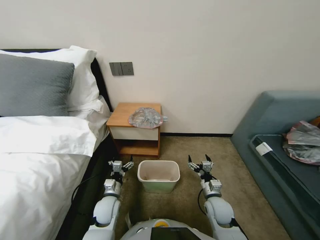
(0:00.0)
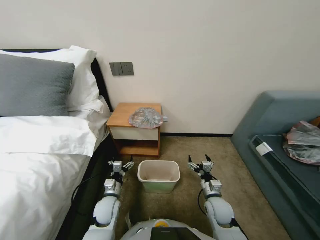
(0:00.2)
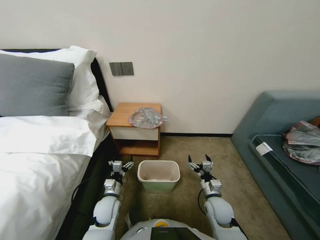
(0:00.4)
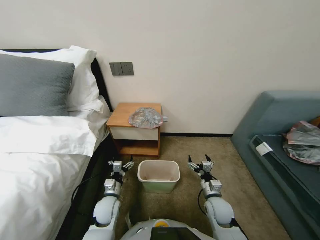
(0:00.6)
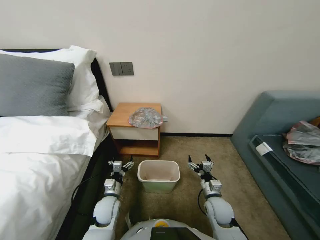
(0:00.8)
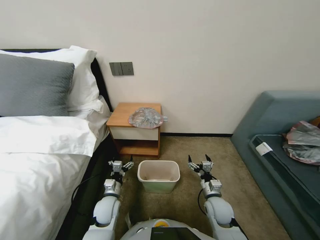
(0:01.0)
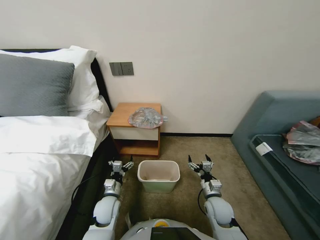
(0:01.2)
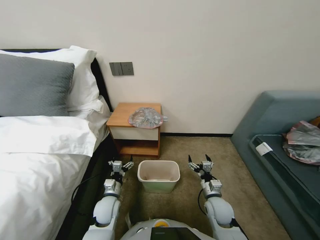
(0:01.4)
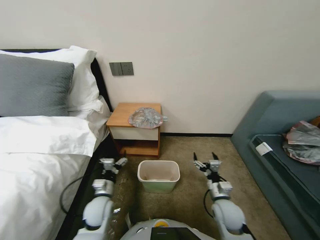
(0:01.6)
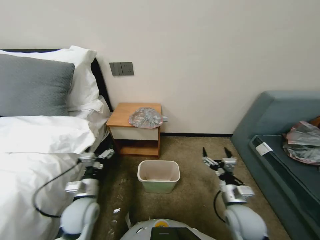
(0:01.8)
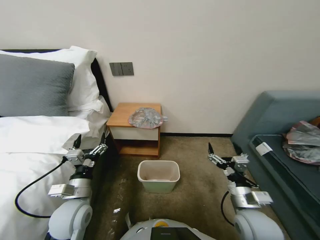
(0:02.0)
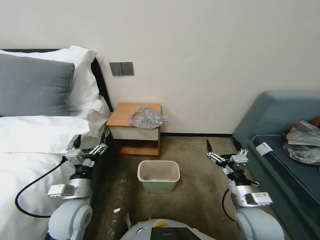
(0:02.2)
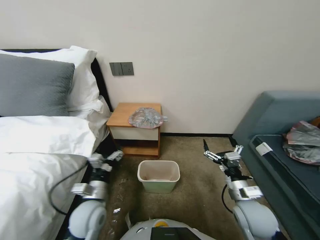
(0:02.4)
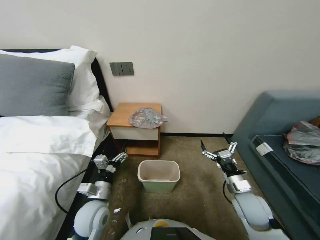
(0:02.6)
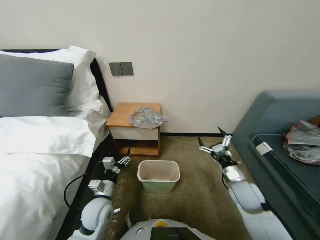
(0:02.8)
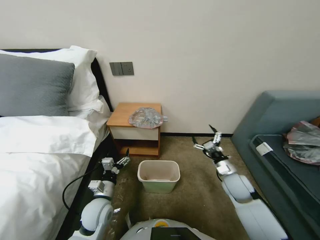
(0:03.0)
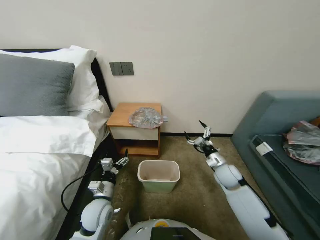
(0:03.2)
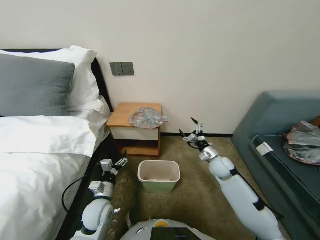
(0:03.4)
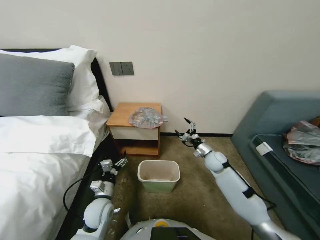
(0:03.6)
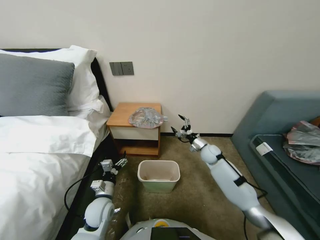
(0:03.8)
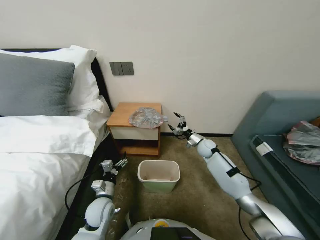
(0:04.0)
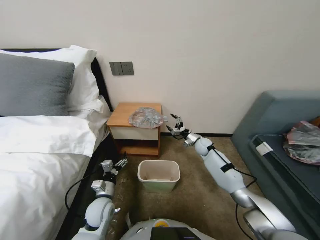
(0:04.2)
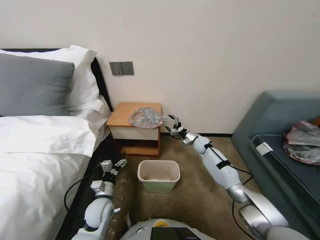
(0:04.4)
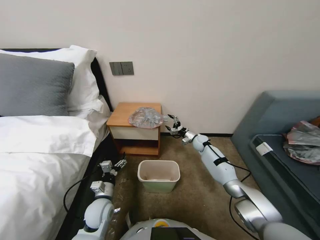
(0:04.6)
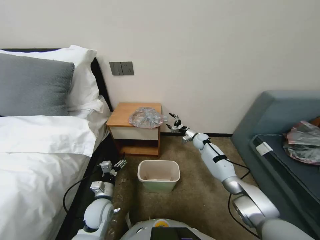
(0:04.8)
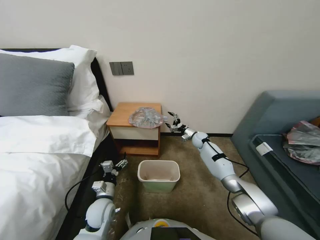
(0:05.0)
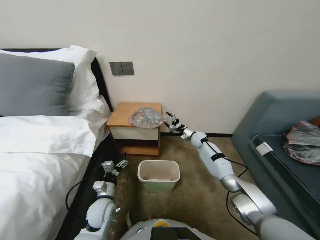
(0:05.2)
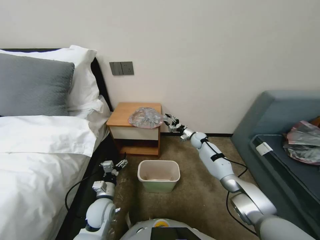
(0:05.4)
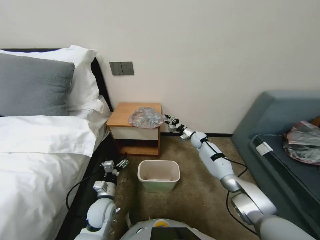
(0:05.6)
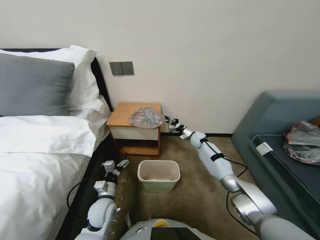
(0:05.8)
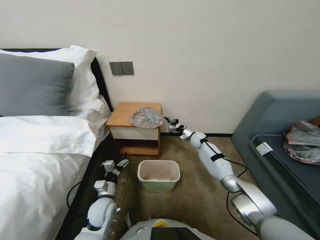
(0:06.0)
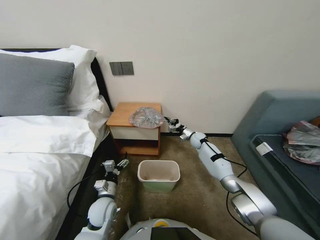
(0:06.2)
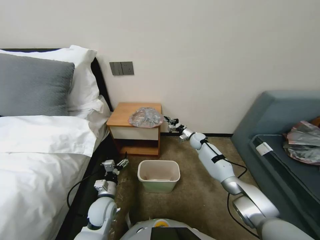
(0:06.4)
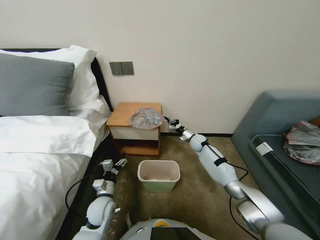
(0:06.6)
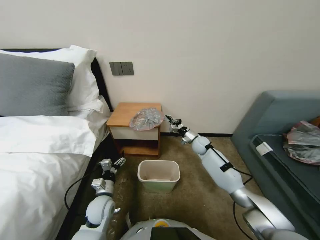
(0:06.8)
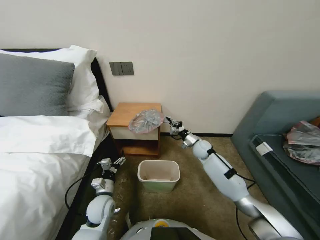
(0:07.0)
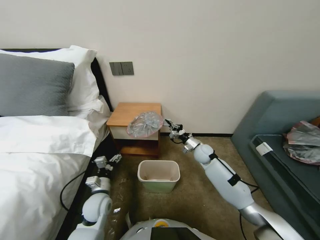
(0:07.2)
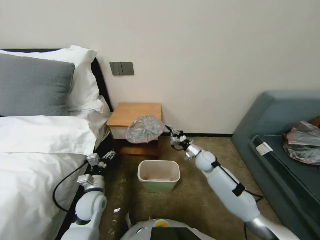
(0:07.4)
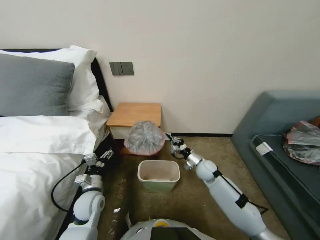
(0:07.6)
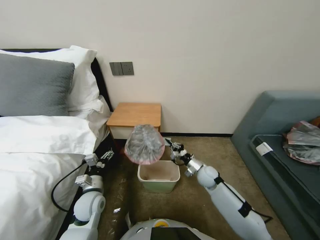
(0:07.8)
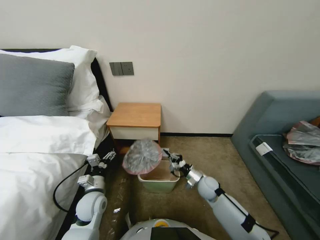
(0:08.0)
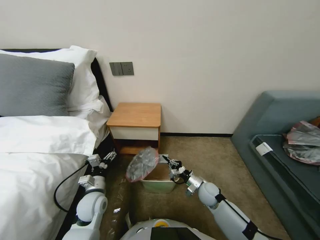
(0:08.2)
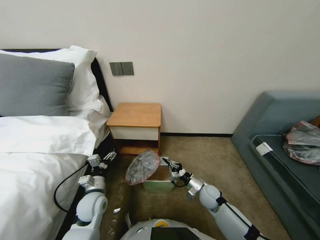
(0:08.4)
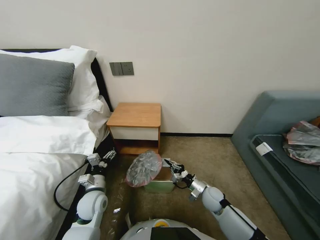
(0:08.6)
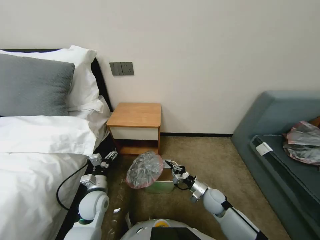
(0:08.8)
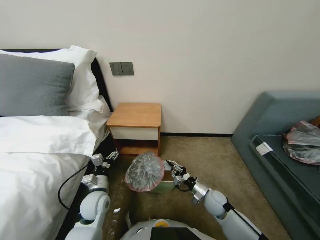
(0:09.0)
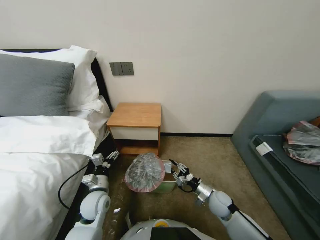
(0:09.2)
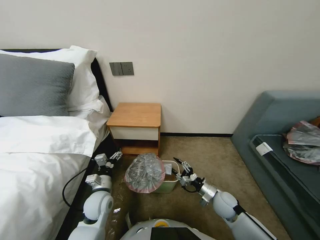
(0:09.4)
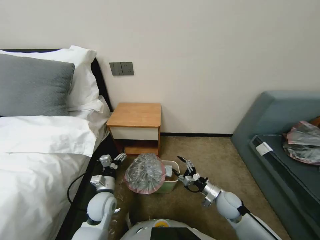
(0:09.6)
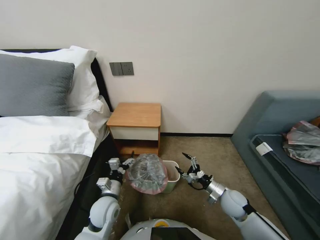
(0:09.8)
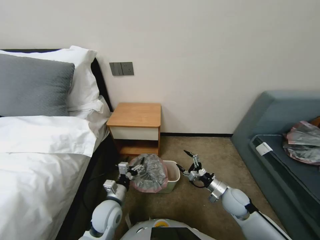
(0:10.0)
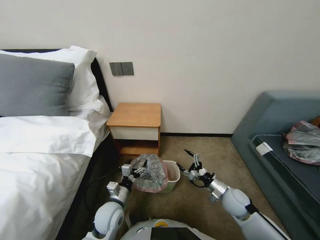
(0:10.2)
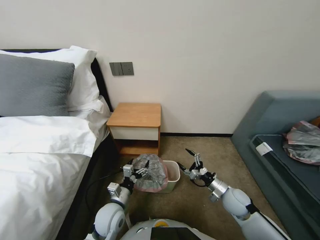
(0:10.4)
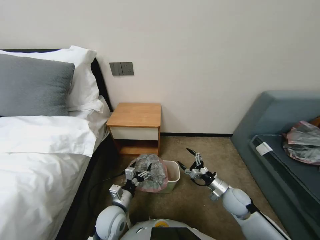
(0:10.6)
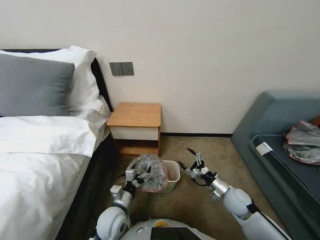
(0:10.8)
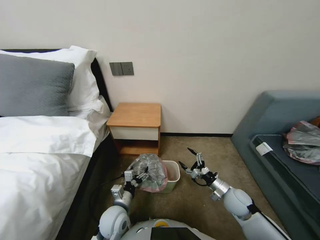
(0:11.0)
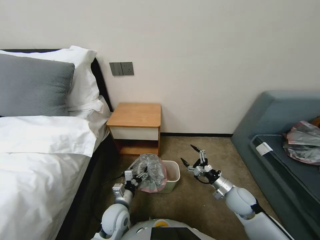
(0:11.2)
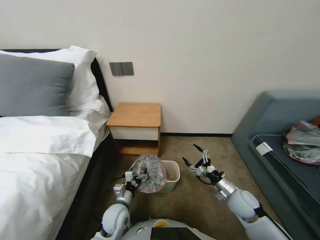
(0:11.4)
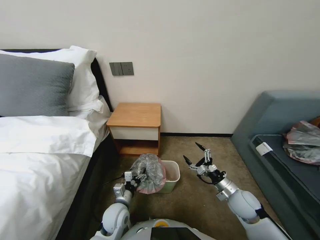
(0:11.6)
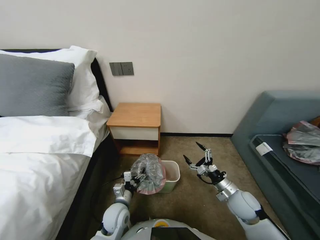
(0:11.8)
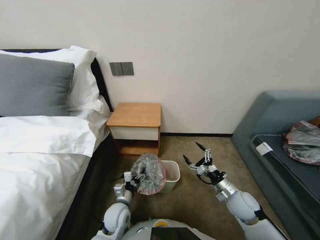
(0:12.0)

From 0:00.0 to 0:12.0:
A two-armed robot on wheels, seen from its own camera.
Task of the whole recording: Pick up the garbage bag from the table and place it over the trash can.
From 0:01.6 to 0:03.0: The right gripper travels to the right, upward and forward by some 10 cm.
From 0:03.0 to 0:04.4: The right gripper moves forward, some 25 cm.
From 0:04.4 to 0:06.0: The right gripper closes.
From 0:06.0 to 0:07.6: The right gripper travels backward by roughly 15 cm, while the left gripper changes place by about 5 cm.
From 0:07.6 to 0:09.0: The right gripper moves backward and downward, some 15 cm.
From 0:09.0 to 0:10.4: The right gripper moves to the right and upward, approximately 10 cm, and opens its fingers; the left gripper is displaced to the right by about 5 cm.
From 0:10.4 to 0:12.0: The grippers make only small movements.

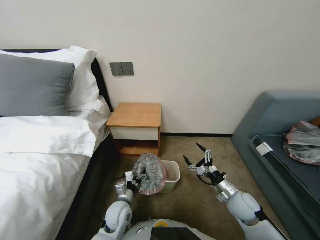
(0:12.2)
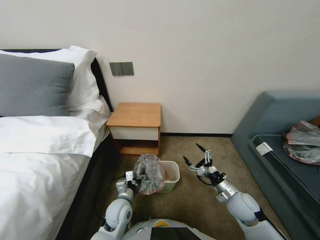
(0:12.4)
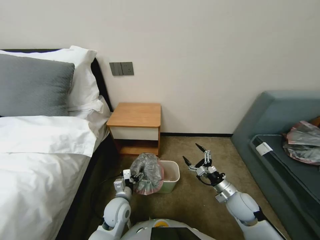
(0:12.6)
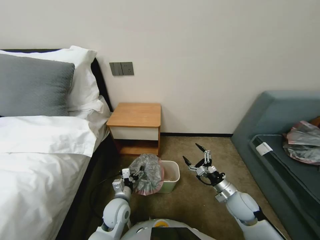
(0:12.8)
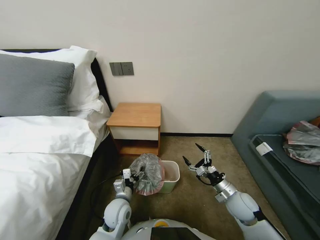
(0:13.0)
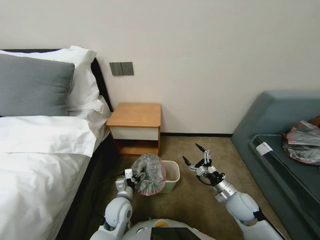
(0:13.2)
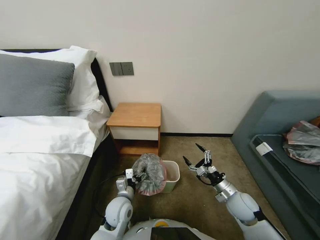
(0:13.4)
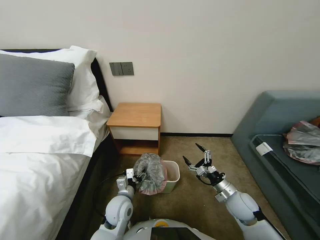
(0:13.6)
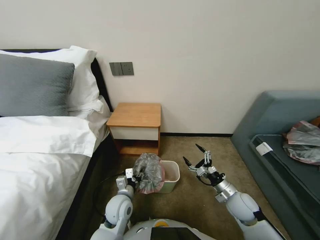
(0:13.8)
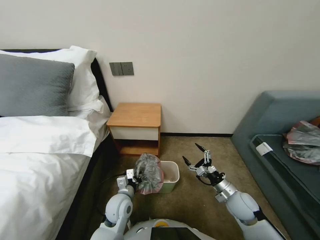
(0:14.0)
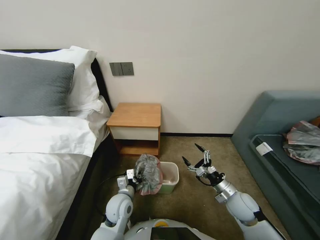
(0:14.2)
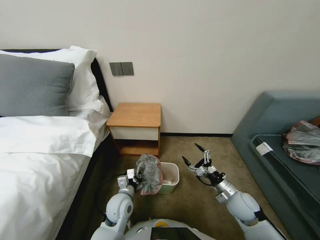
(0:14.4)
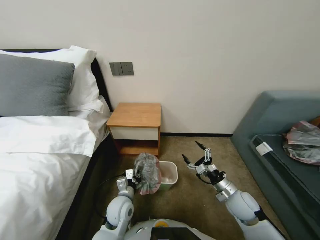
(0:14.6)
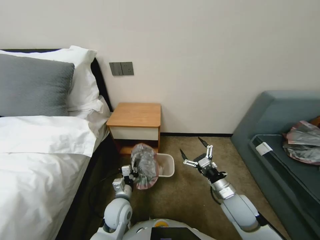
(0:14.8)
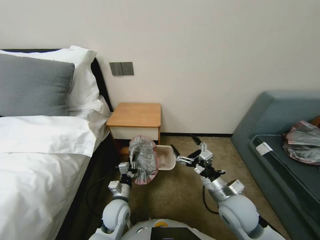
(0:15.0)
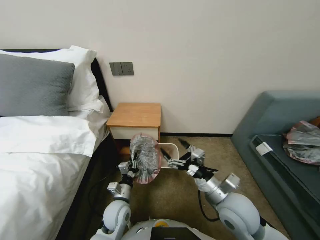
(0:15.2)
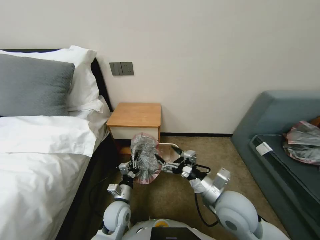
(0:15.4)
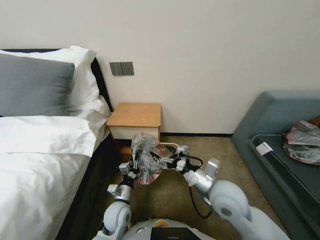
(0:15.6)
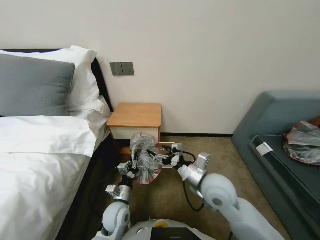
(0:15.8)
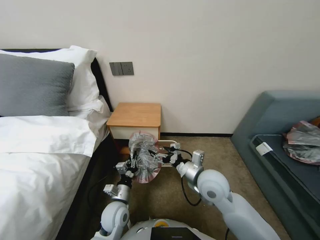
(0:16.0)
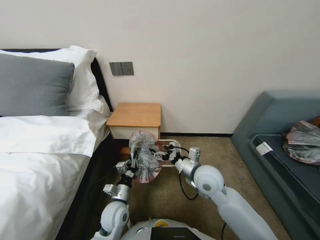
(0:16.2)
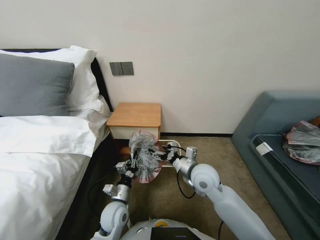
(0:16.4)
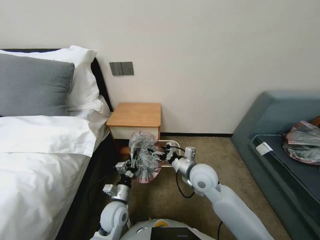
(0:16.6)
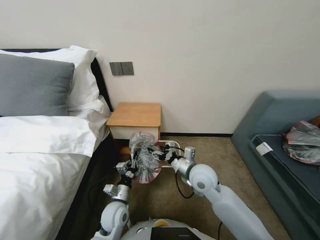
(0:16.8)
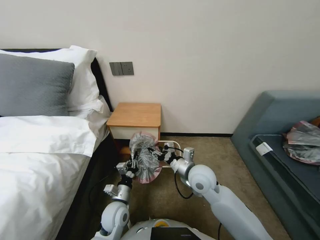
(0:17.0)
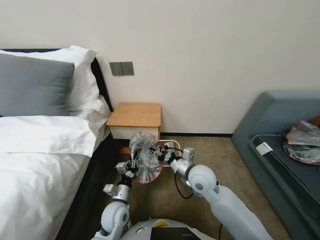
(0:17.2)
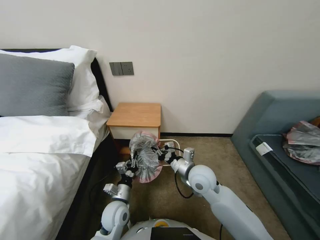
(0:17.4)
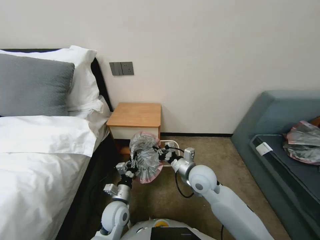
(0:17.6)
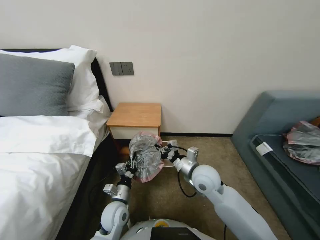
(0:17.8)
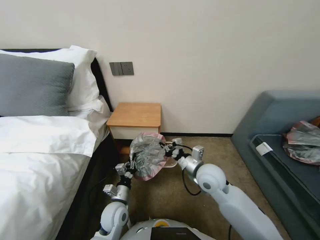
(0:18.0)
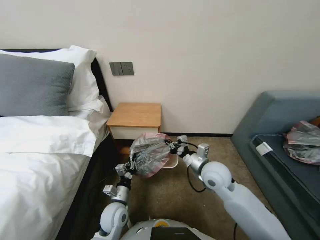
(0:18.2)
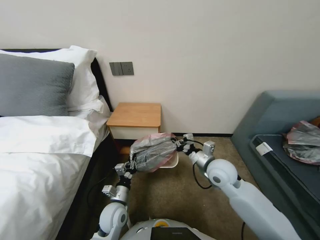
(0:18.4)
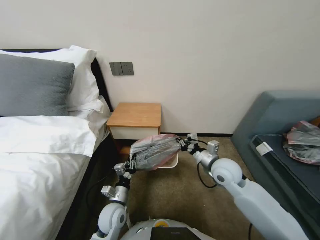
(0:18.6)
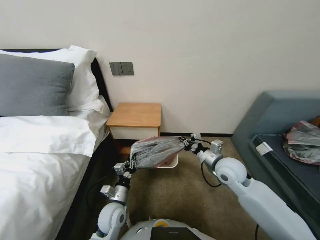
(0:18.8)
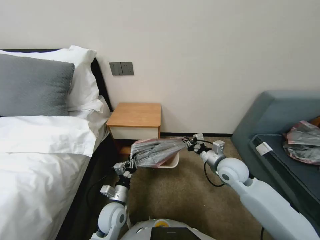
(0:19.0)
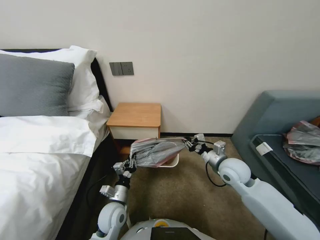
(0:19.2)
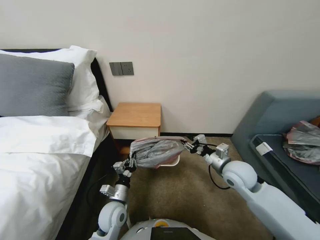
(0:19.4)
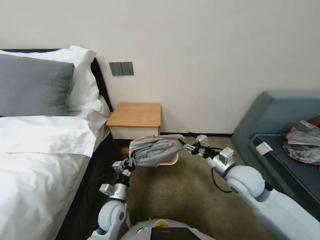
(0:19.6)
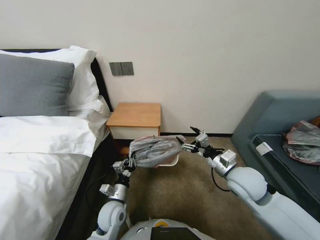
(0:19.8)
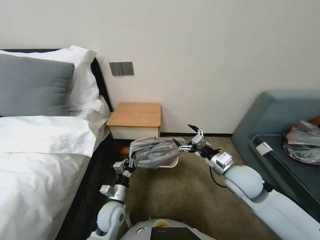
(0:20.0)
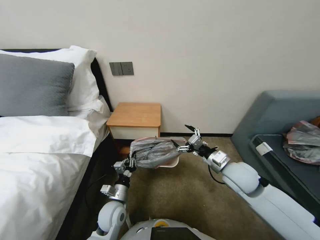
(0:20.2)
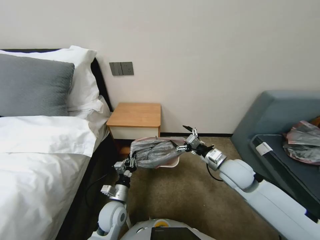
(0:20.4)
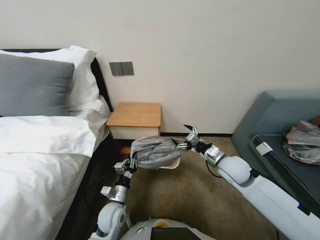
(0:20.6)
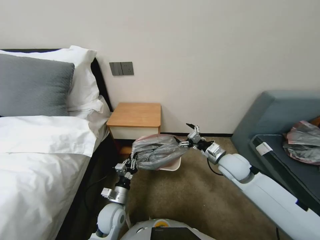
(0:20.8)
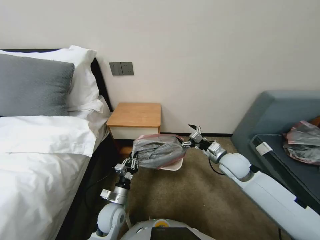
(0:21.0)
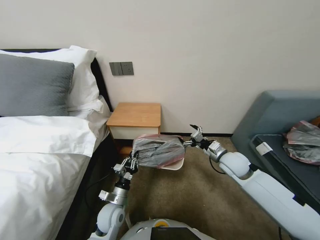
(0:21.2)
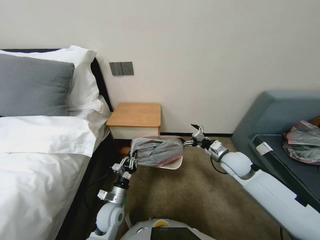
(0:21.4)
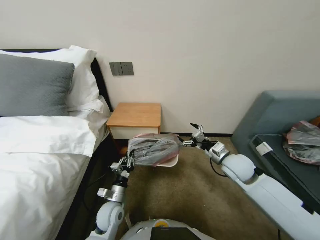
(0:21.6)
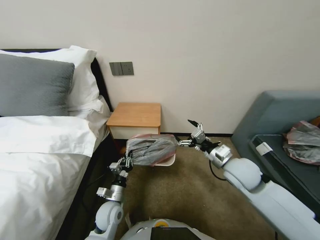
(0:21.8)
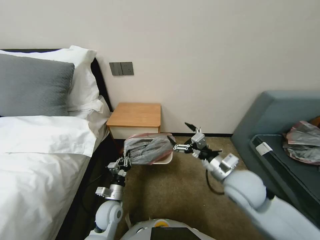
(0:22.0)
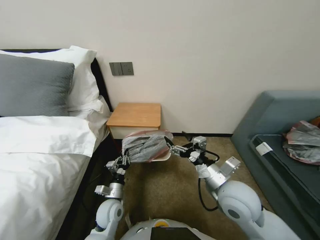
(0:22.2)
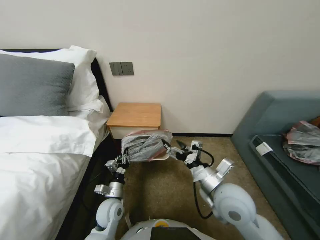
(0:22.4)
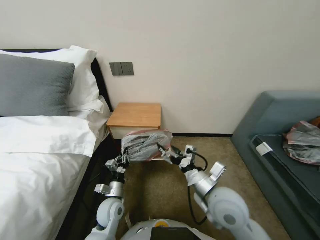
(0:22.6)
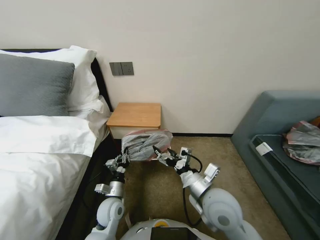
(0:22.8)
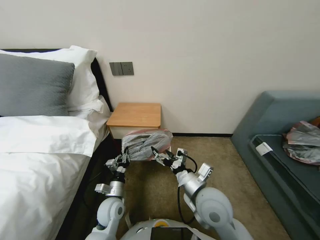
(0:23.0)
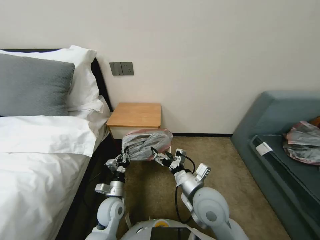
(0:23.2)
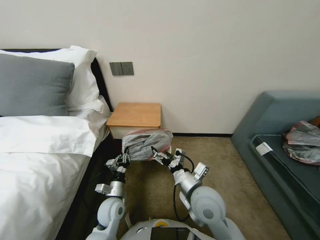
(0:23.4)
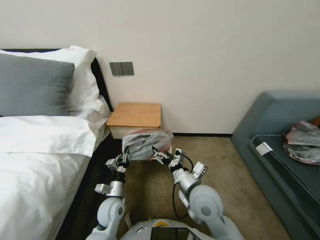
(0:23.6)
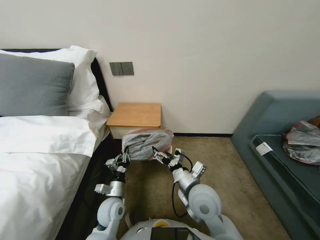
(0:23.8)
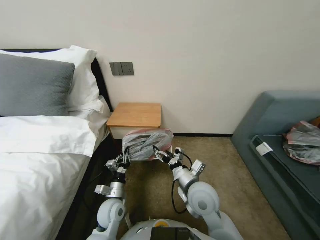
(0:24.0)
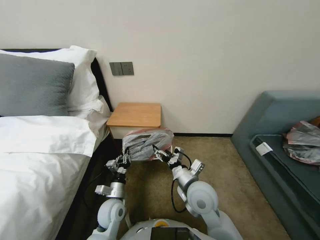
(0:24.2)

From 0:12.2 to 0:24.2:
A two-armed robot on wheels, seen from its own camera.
Task of the whole recording: Pick up the garbage bag from the table and place it over the trash can.
From 0:12.2 to 0:13.8: There are only small adjustments of the grippers.
From 0:13.8 to 0:15.2: The left gripper closes; the right gripper goes approximately 15 cm upward and to the left.
From 0:15.2 to 0:16.6: The right gripper travels forward and to the left by roughly 10 cm.
From 0:16.6 to 0:18.2: The right gripper closes up.
From 0:18.2 to 0:19.8: The right gripper moves to the right, about 10 cm, and opens.
From 0:19.8 to 0:21.2: The right gripper goes roughly 10 cm forward.
From 0:21.2 to 0:22.6: The right gripper shifts approximately 20 cm backward and to the left.
From 0:22.6 to 0:24.2: The right gripper travels to the left by approximately 5 cm.
